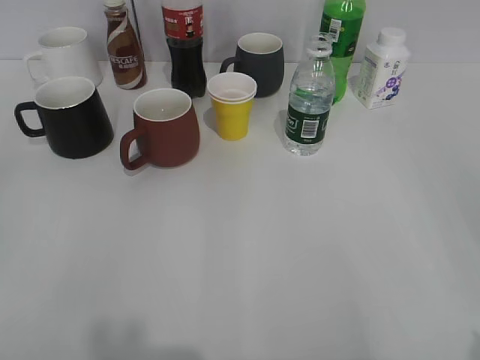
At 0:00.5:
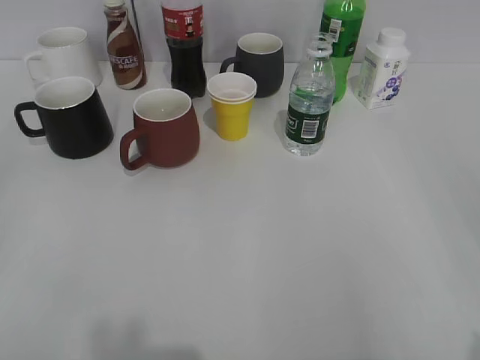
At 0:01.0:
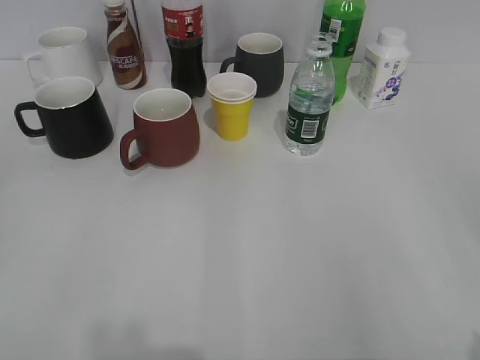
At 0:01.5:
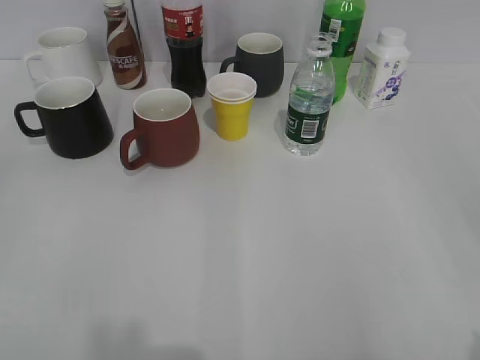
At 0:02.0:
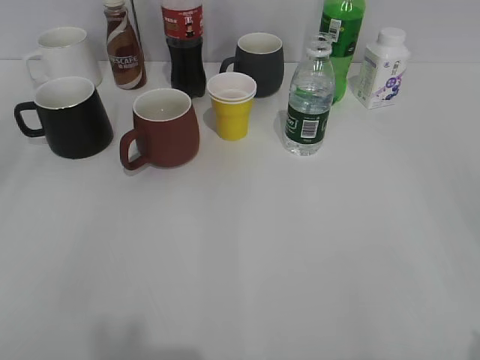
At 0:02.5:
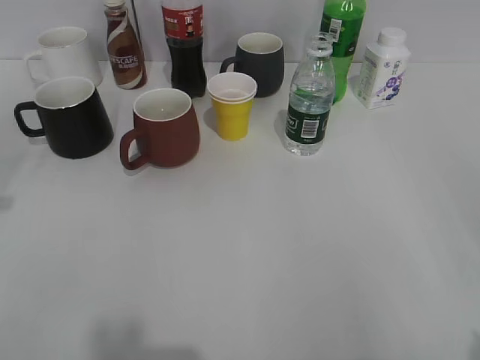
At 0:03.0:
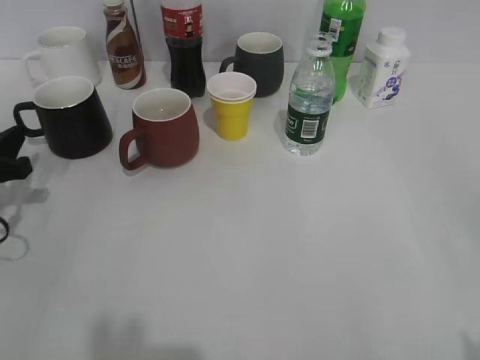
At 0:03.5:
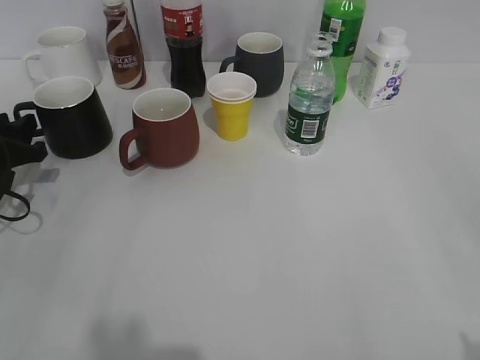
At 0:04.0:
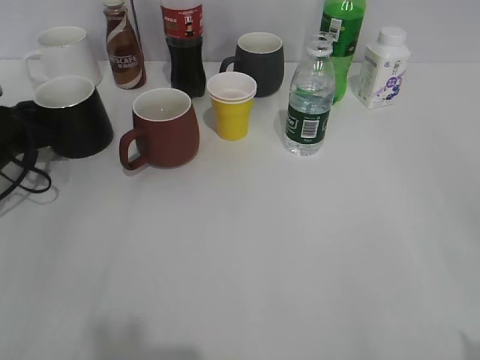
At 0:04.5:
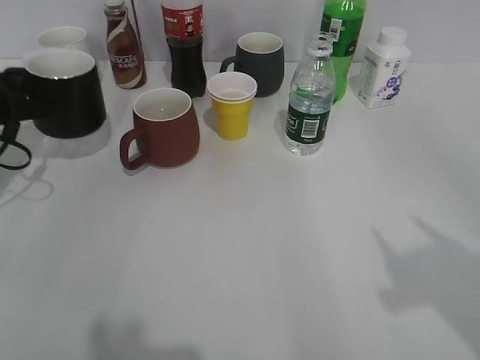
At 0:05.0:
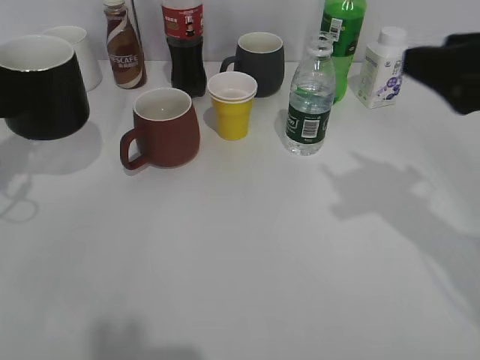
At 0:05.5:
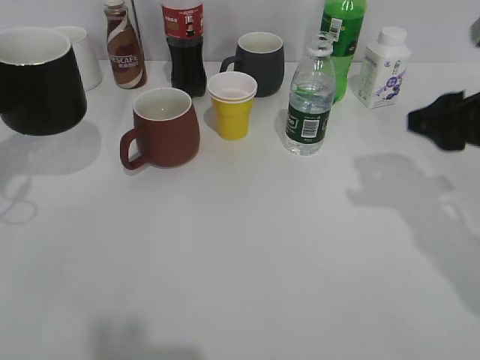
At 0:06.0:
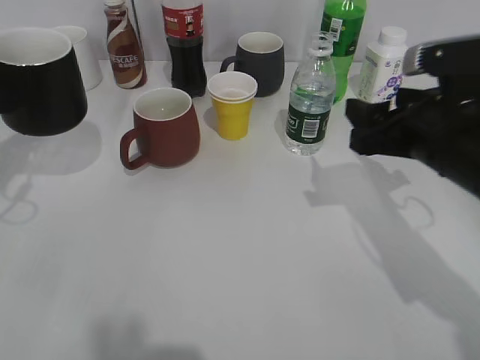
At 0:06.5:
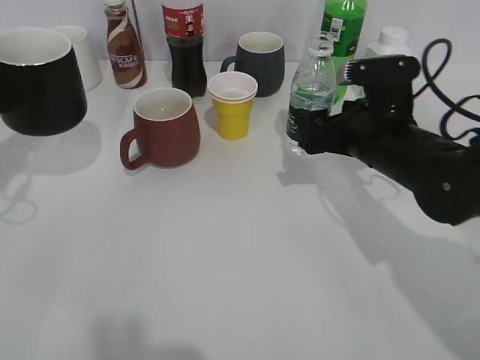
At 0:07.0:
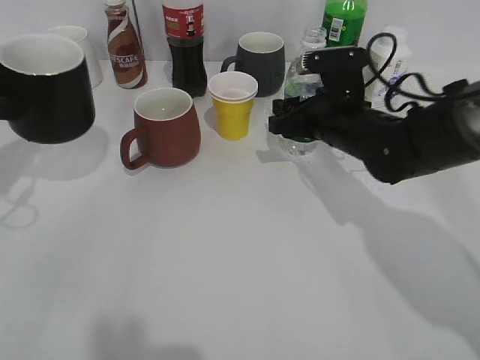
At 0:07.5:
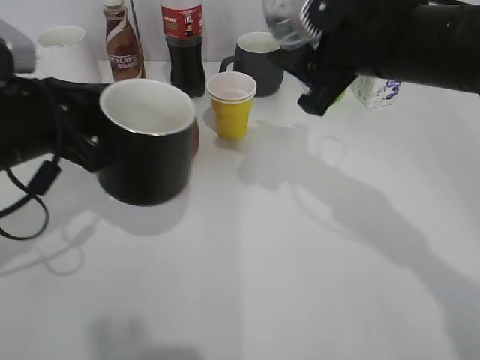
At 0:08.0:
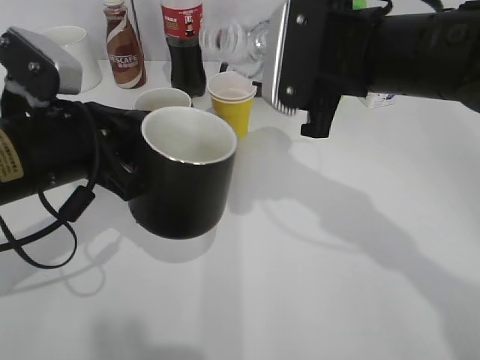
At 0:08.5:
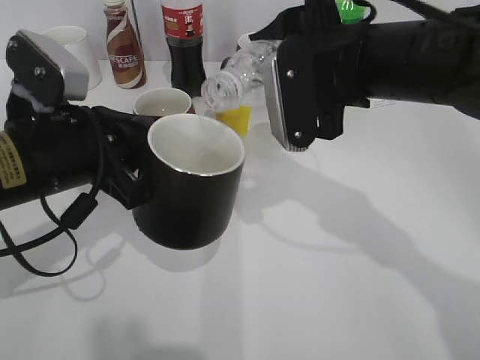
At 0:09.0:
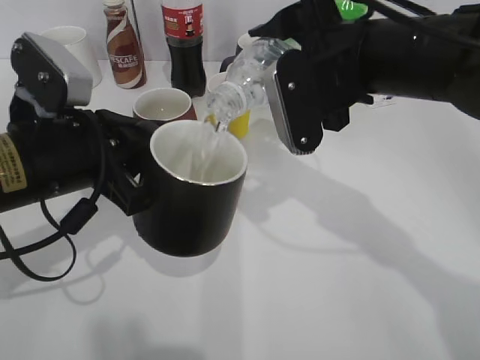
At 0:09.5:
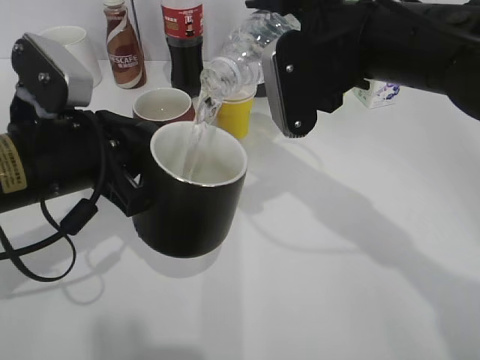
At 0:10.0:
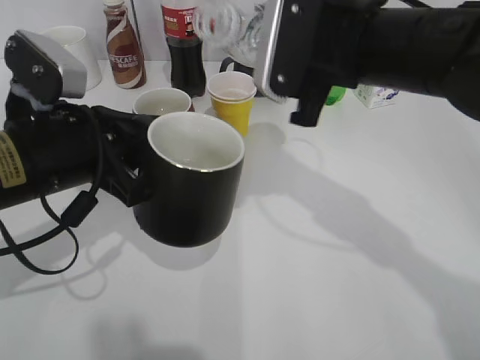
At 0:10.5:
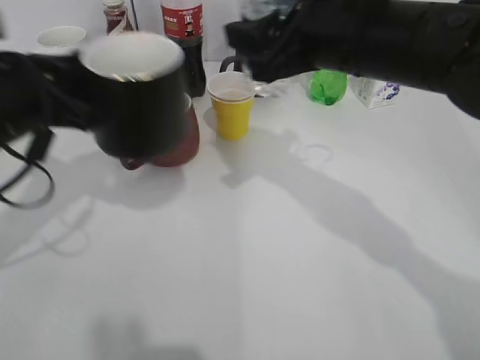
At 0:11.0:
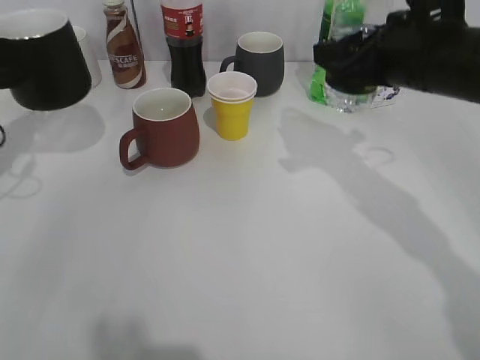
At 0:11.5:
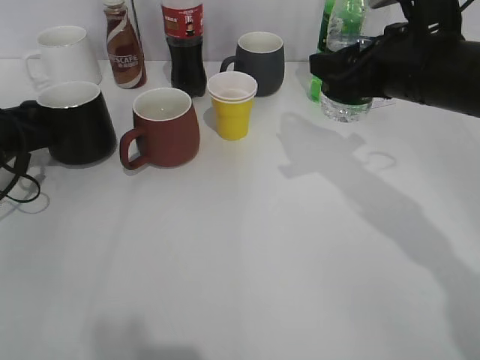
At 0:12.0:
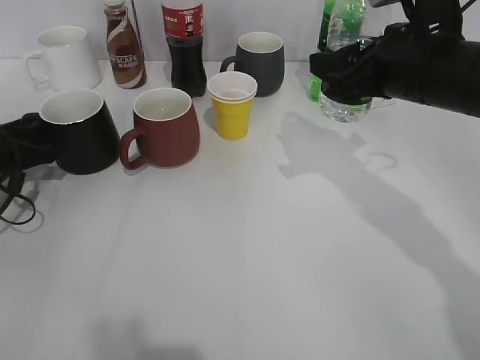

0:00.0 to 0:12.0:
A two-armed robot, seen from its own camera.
Step, 0:01.5 to 0:04.0: Grasp the black cup with left gripper.
Step, 0:04.5 to 0:05.0: Lift the black cup with left gripper.
Step, 0:05.5 to 0:06.5: Grasp the bottle with water with right gripper.
Step, 0:07.0 to 0:09.5: Pour the water from bottle to cup with right gripper.
Step, 0:10.5 to 0:11.5: Place the black cup on the table with left gripper.
0:02.0 to 0:04.0: The left gripper travels forward and downward by approximately 40 cm.
0:04.0 to 0:06.0: The left gripper goes roughly 15 cm upward and backward, while the right gripper travels forward by approximately 25 cm, and closes and opens again.
0:06.0 to 0:08.0: The right gripper shifts roughly 10 cm to the left and upward, and closes up. The left gripper shifts roughly 15 cm to the right and backward.
0:10.0 to 0:12.0: The right gripper heads to the right, covering about 5 cm, while the left gripper is displaced to the left, downward and forward by about 20 cm.

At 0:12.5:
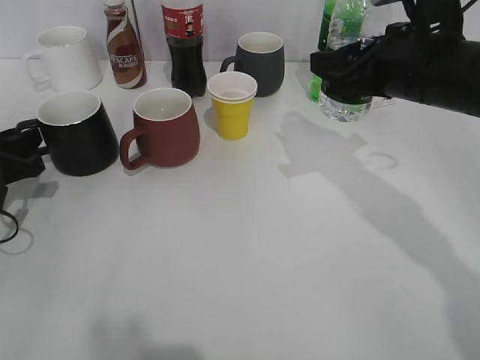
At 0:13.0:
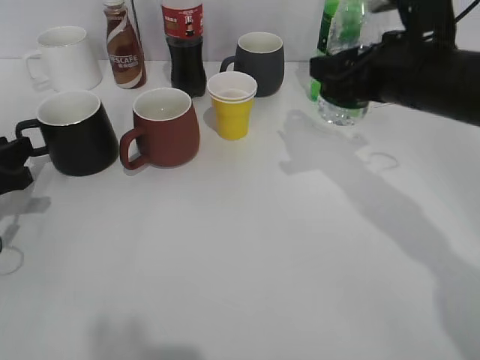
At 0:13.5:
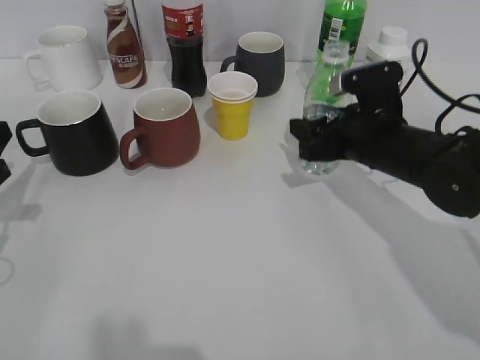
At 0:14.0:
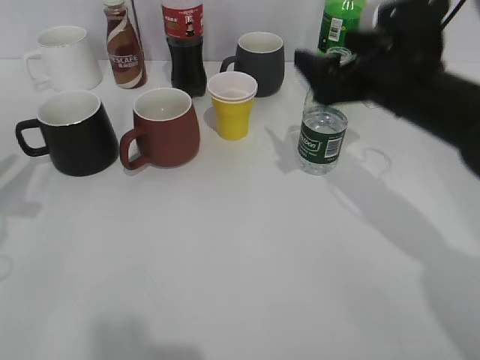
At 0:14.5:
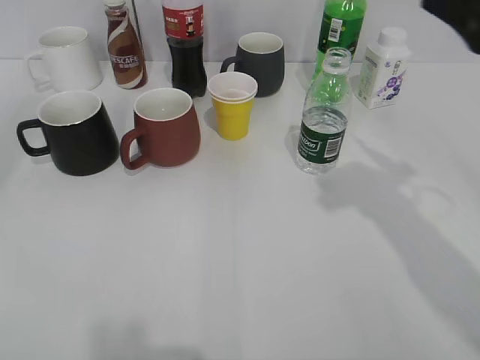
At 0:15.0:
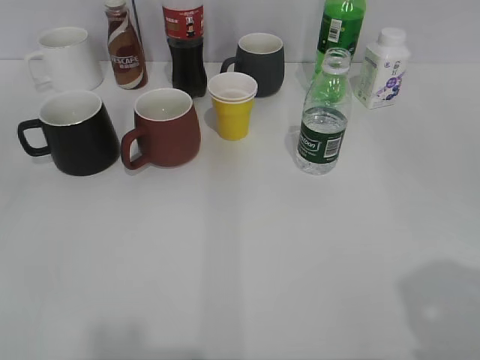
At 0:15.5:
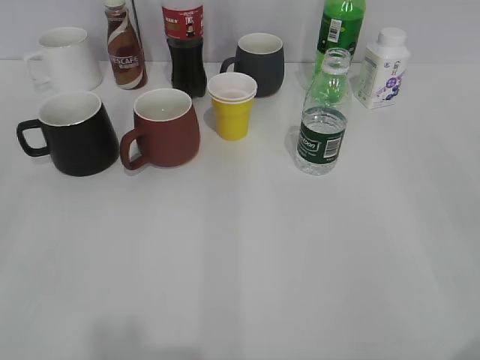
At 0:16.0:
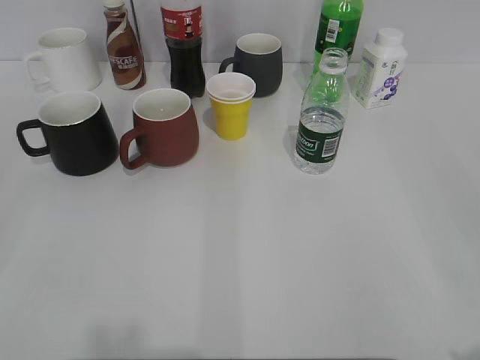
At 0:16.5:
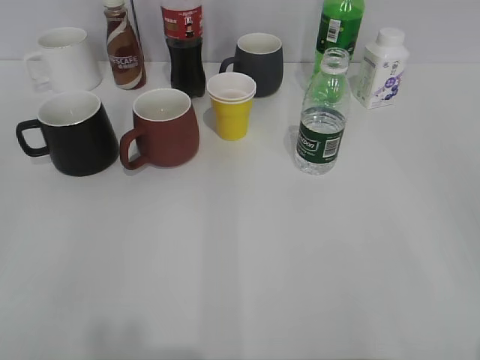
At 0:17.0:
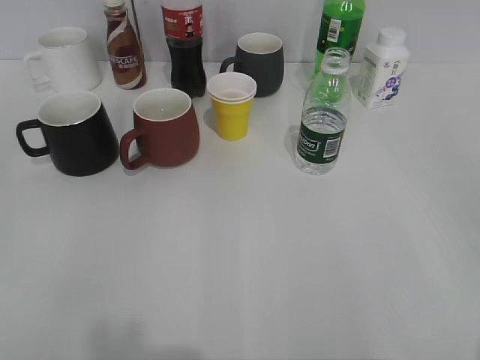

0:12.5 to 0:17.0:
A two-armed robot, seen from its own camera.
Step, 0:12.5 to 0:13.5: Place the water bottle on the table with right gripper.
0:12.5 to 0:14.5: The right gripper heads upward and backward, covering about 15 cm, and opens. Meanwhile the left gripper travels upward and backward by roughly 25 cm.
0:14.5 to 0:17.0: The left gripper travels backward by some 15 cm, and opens, then closes once more. The right gripper heads backward and to the right, covering roughly 25 cm, and closes.

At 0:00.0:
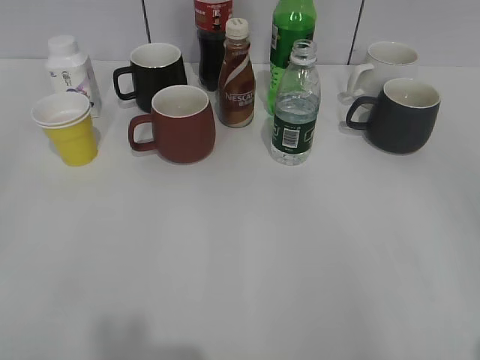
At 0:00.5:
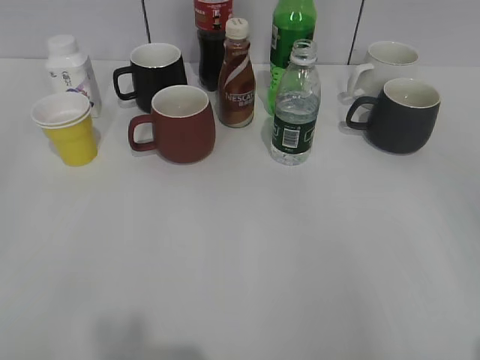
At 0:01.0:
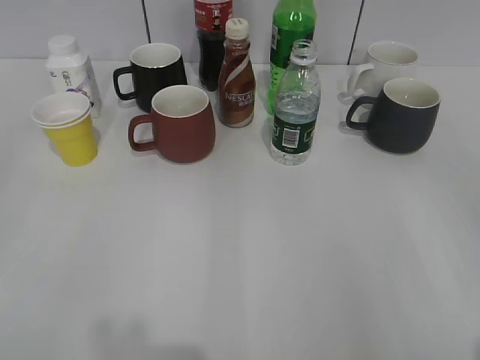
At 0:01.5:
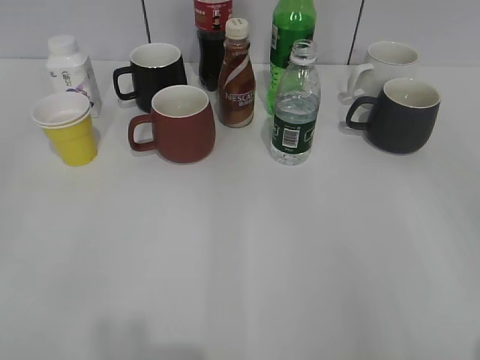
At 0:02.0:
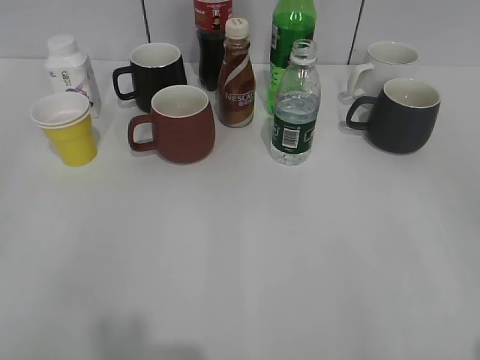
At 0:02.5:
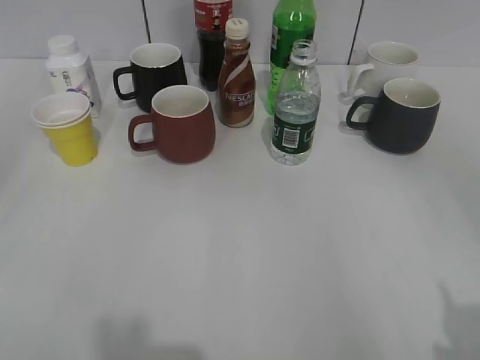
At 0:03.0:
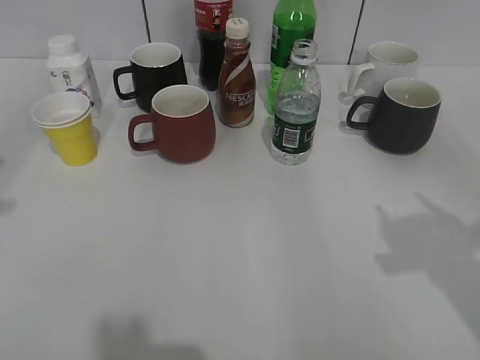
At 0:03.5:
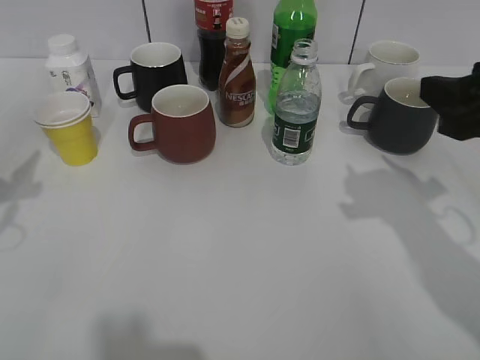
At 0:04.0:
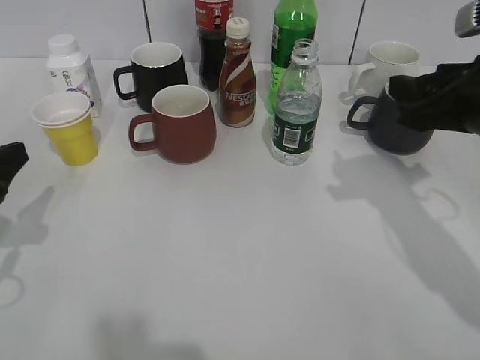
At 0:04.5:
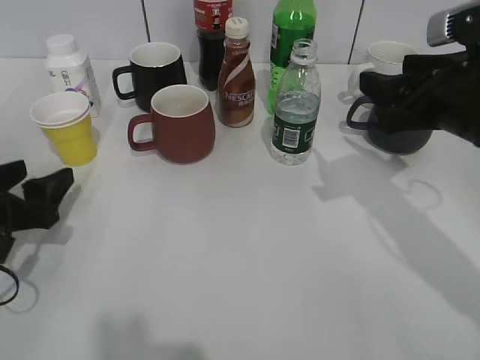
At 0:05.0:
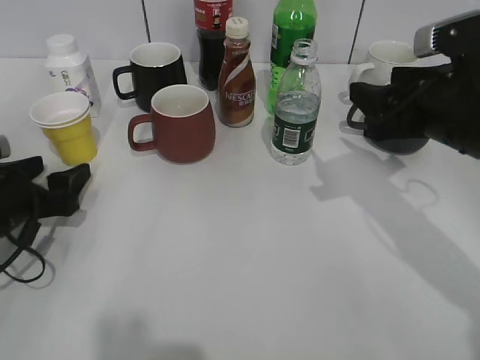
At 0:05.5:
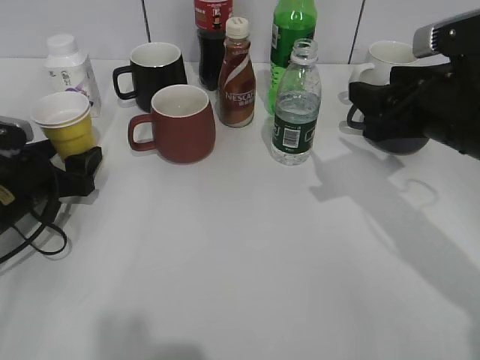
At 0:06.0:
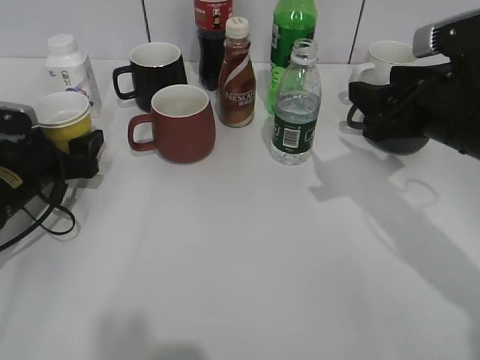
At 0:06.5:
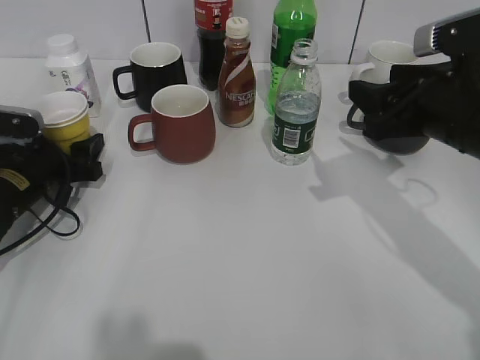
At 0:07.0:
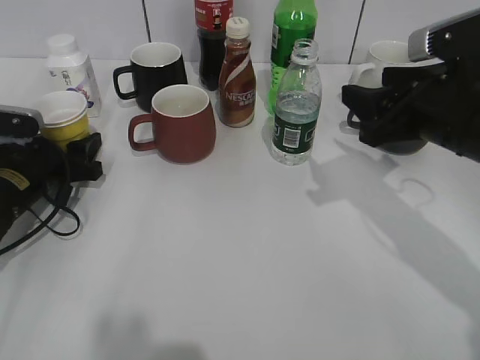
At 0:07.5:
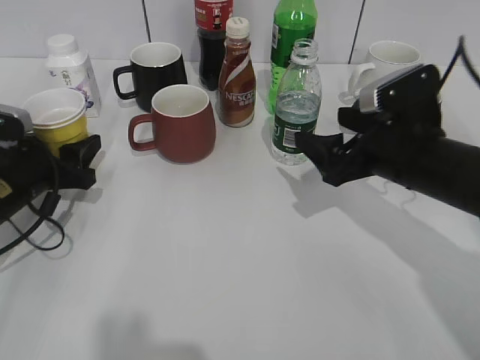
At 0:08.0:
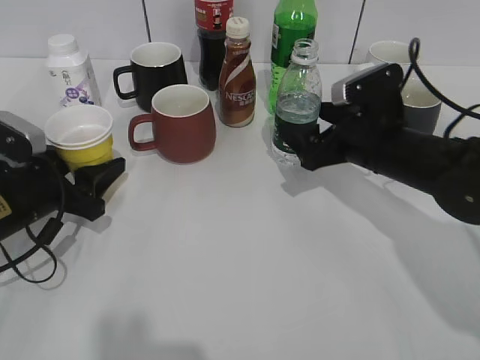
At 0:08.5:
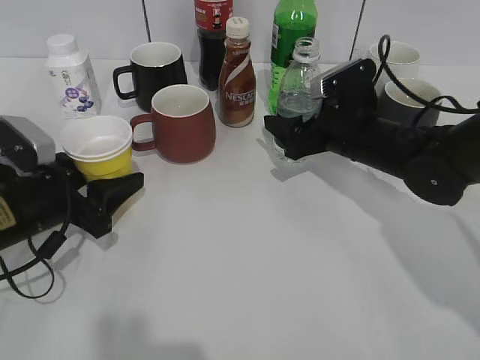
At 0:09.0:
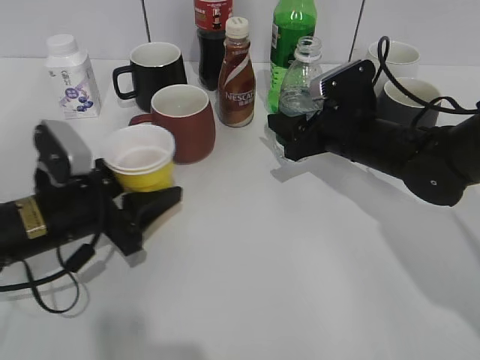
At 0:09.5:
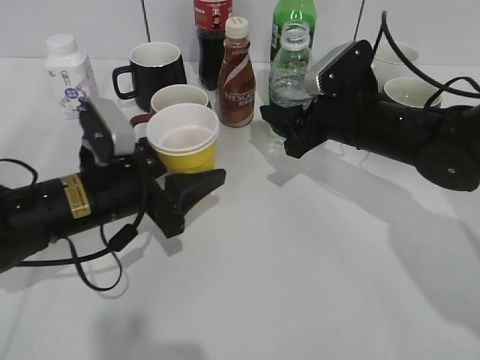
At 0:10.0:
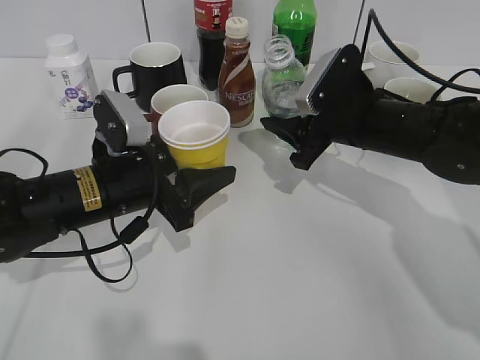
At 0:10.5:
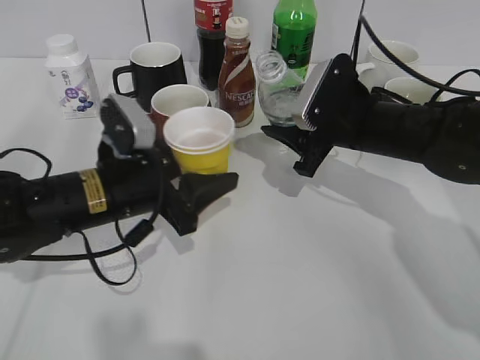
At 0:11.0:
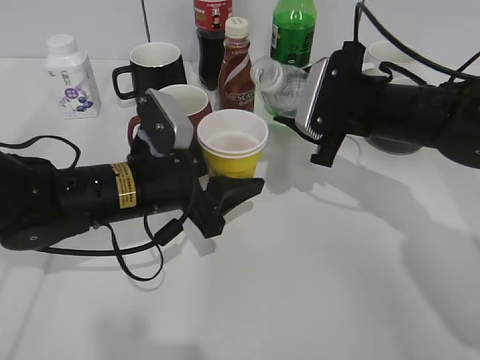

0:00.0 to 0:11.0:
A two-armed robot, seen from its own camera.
Step, 0:00.0 to 0:06.5: Grasp the yellow paper cup with left gripper.
Step, 0:07.0 to 0:07.5: Lift the yellow paper cup with left gripper.
Step, 0:08.0 to 0:08.5: Grasp the bottle with water with right gripper.
0:02.0 to 0:03.5: The two grippers go some 25 cm forward. The left gripper opens; the right gripper closes its fingers.
0:03.5 to 0:05.5: The left gripper goes roughly 15 cm downward and forward. Meanwhile the right gripper heads forward, covering roughly 5 cm.
0:05.5 to 0:07.5: The left gripper closes up. The right gripper shifts approximately 5 cm downward, and opens.
0:07.5 to 0:09.0: The right gripper is displaced forward by approximately 10 cm, and closes. The left gripper heads to the right, covering roughly 5 cm.
0:09.0 to 0:11.0: The left gripper goes some 10 cm to the right; the right gripper moves upward, about 5 cm.
